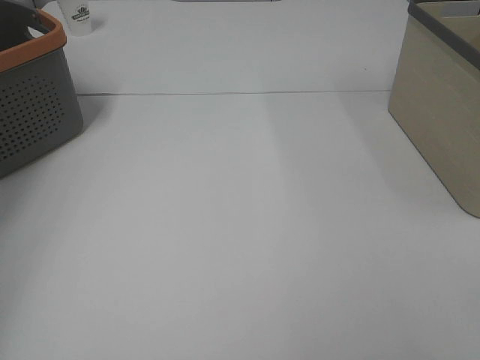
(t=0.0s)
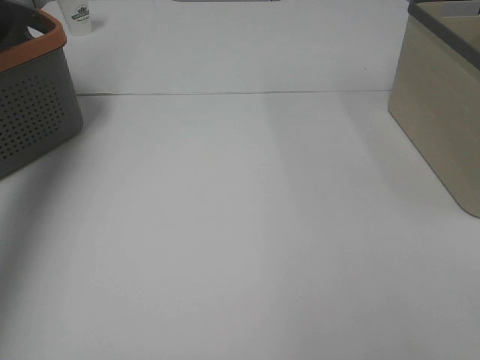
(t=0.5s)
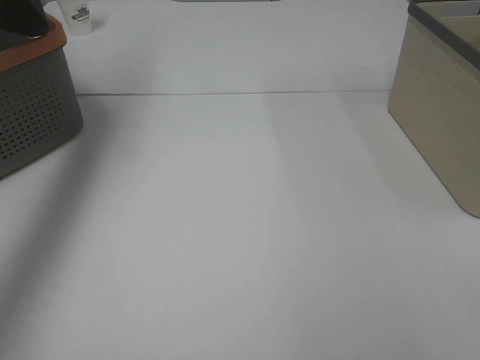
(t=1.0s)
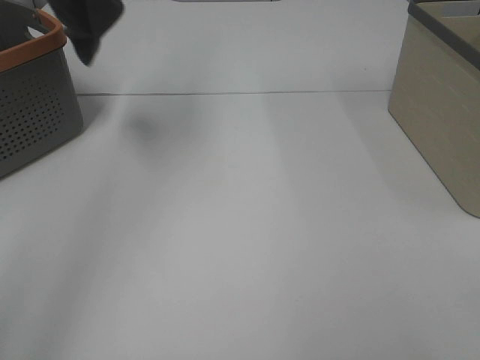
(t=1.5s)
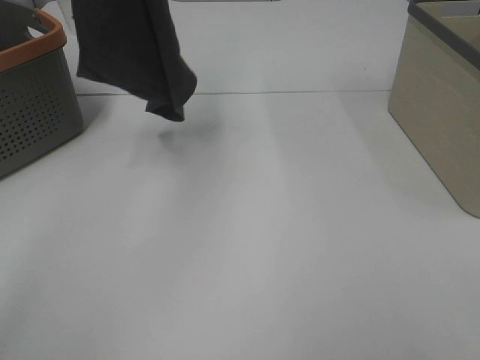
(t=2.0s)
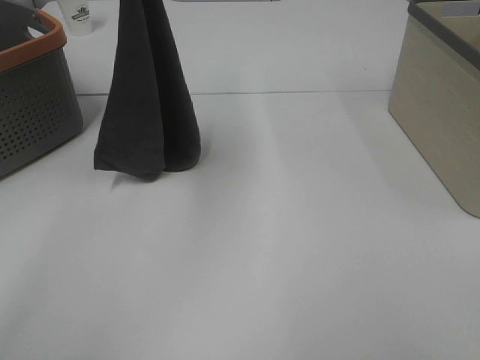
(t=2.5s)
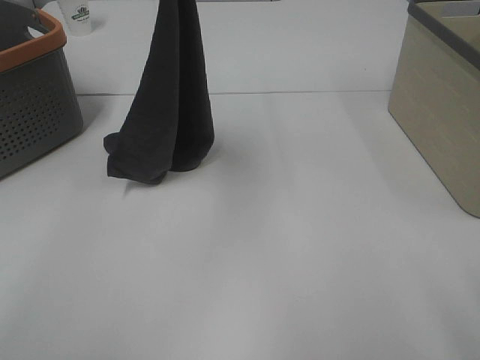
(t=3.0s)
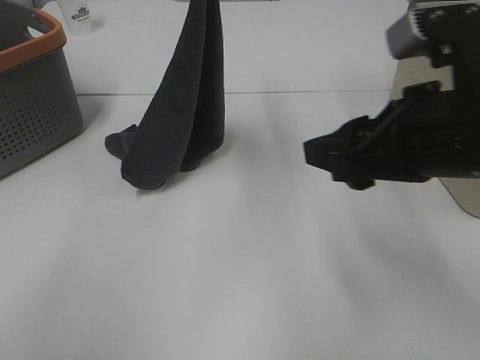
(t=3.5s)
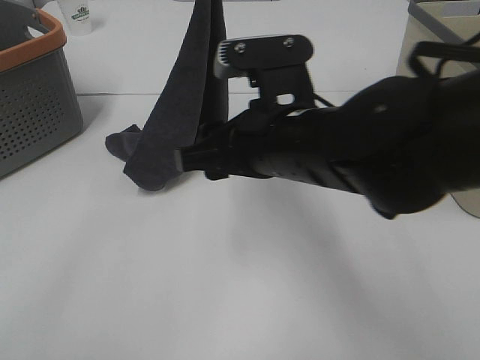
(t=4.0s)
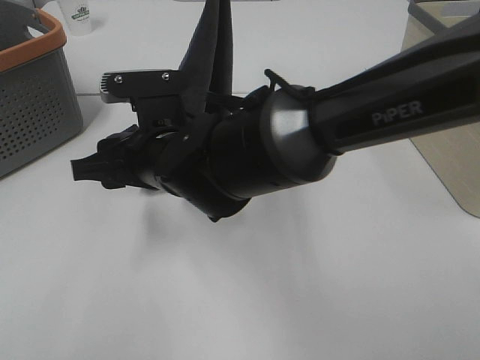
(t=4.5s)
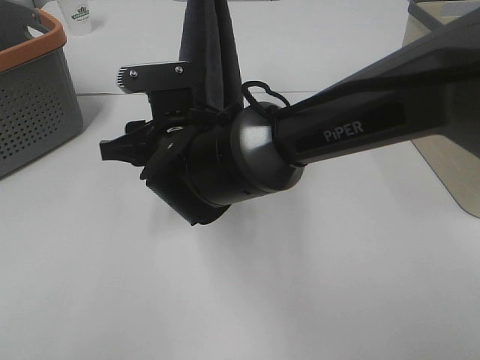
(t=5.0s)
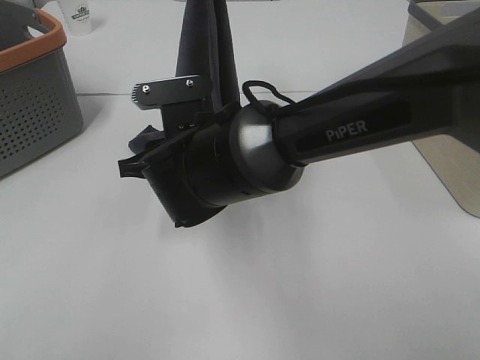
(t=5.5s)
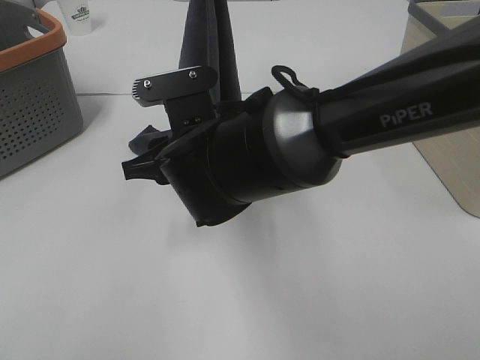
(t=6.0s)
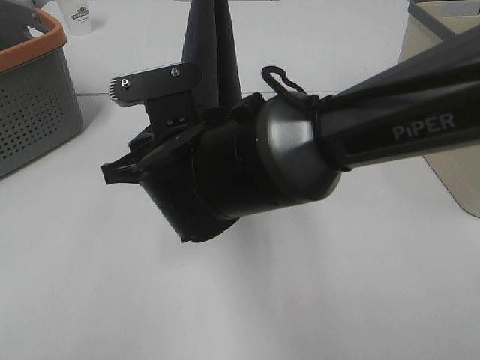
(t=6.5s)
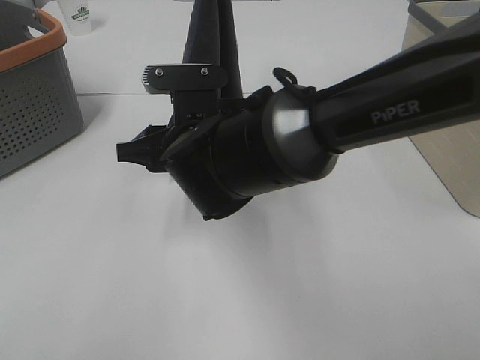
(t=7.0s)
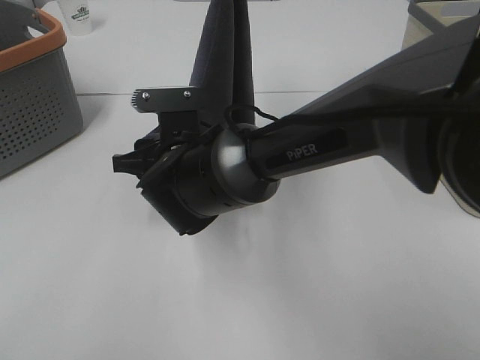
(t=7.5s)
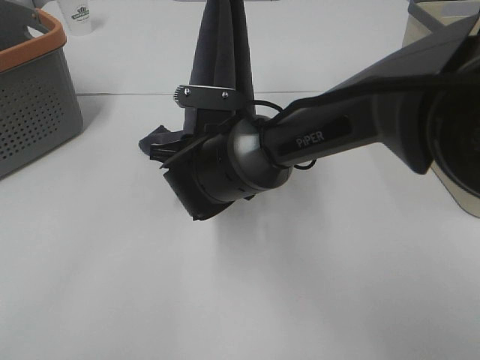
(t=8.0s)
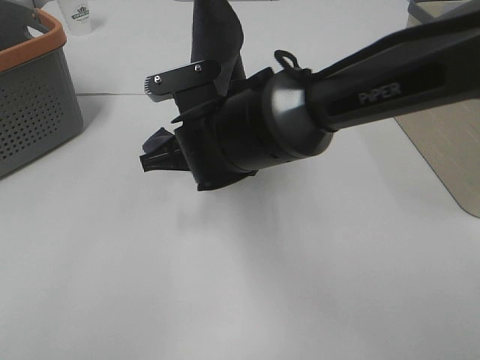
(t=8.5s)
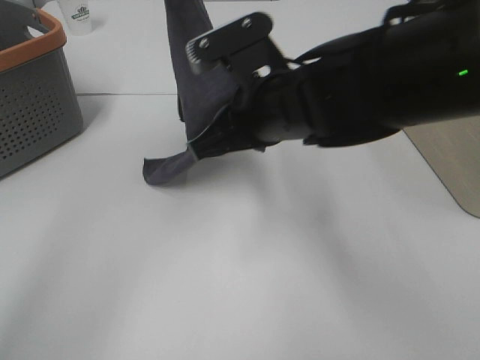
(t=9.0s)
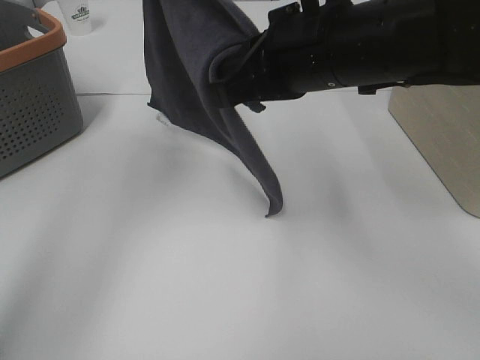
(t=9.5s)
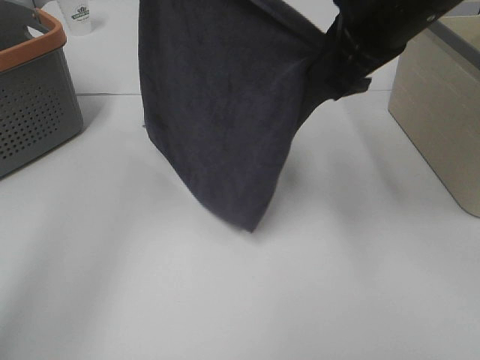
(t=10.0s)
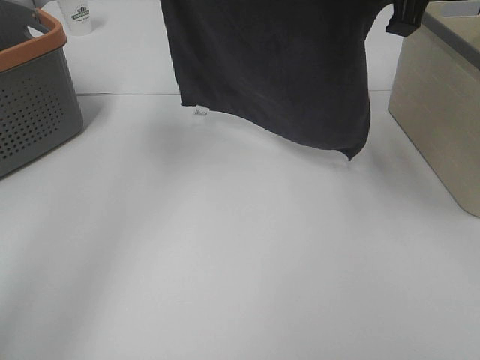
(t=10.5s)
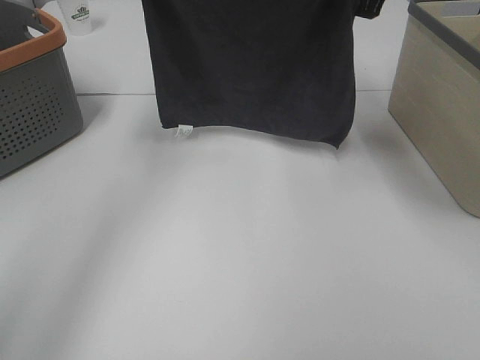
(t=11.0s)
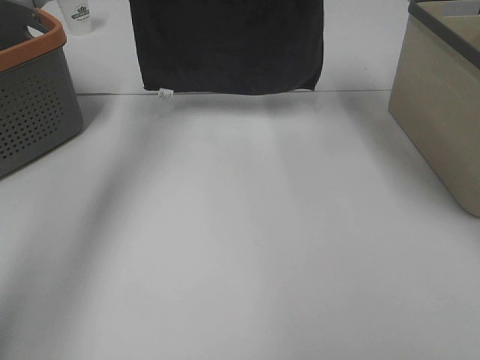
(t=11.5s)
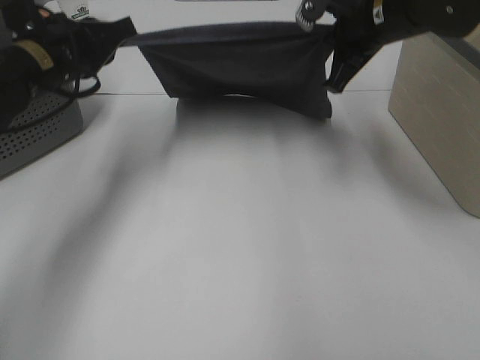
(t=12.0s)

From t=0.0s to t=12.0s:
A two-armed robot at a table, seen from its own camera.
Task of the whole recording: Remove the towel and place it.
Step, from t=1.0s to t=6.5s: Right hand: grab a corner of the grey towel and straighten it.
Step, from t=7.0s to t=8.5s: Left hand: spread the grey towel flat on the table.
Step, from t=7.0s to t=8.5s: Right hand: spread the grey towel flat on the table.
From t=0.0s to t=2.0s: The left gripper heads to the right, covering approximately 30 cm.
From t=2.0s to t=4.0s: The left gripper heads downward and to the right, covering about 20 cm. Meanwhile the right gripper goes roughly 35 cm forward and to the left.
From t=4.0s to t=6.0s: The right gripper goes roughly 5 cm to the left.
From t=6.0s to t=8.0s: The right gripper is displaced downward and forward by roughly 5 cm.
From t=8.0s to t=10.0s: The left gripper goes some 15 cm to the left and forward, while the right gripper is displaced upward and to the right by roughly 25 cm, and closes its fingers.
From t=10.0s to t=12.0s: The left gripper is displaced downward by about 20 cm; the right gripper heads forward and downward, covering roughly 10 cm.

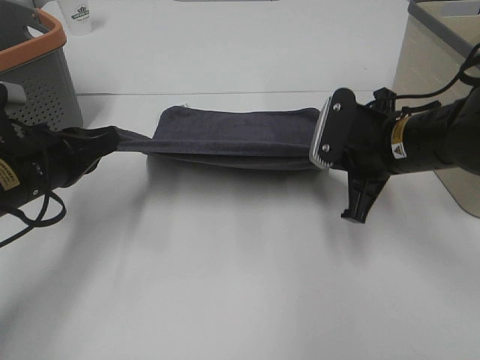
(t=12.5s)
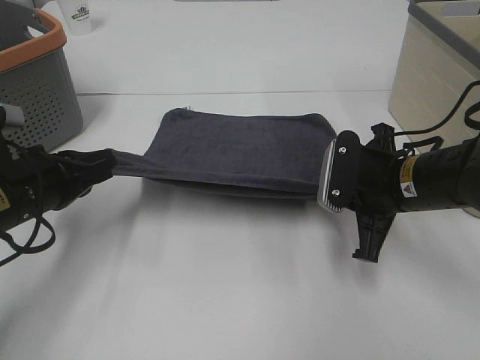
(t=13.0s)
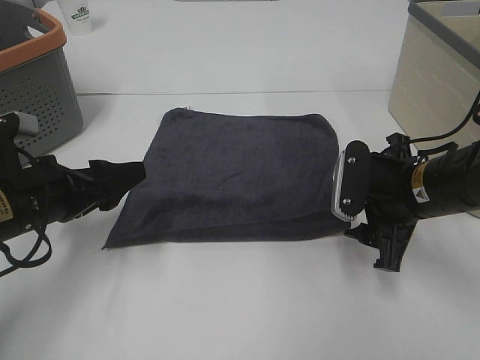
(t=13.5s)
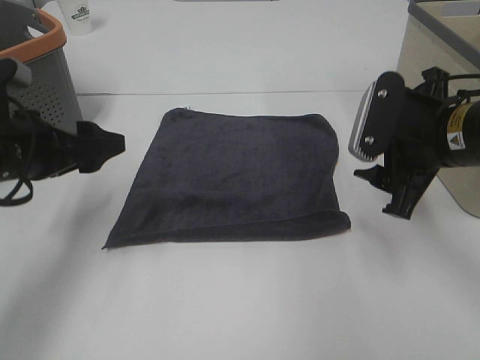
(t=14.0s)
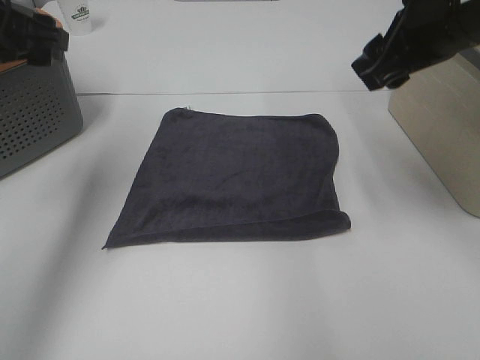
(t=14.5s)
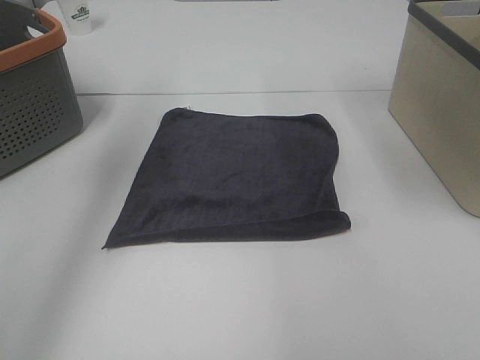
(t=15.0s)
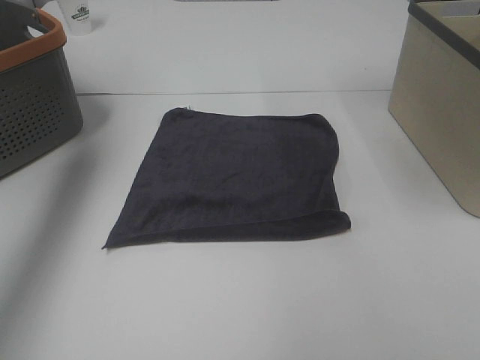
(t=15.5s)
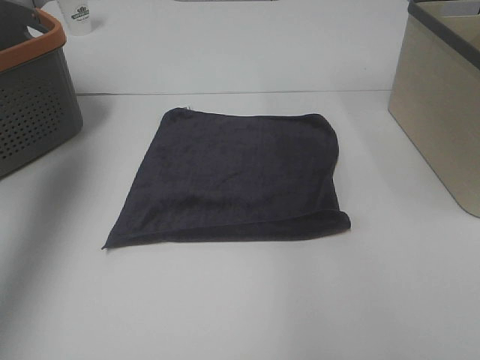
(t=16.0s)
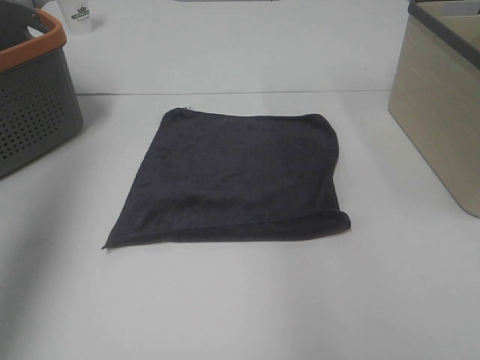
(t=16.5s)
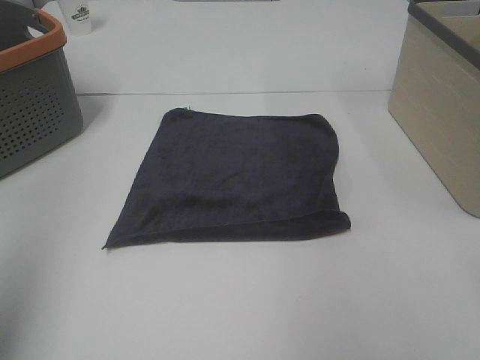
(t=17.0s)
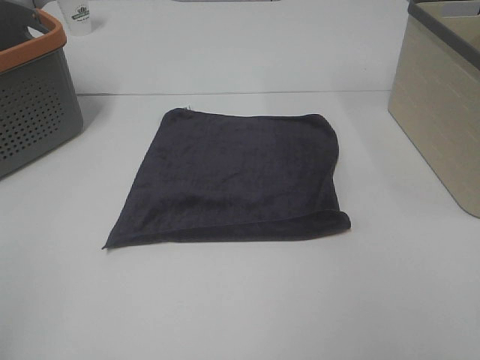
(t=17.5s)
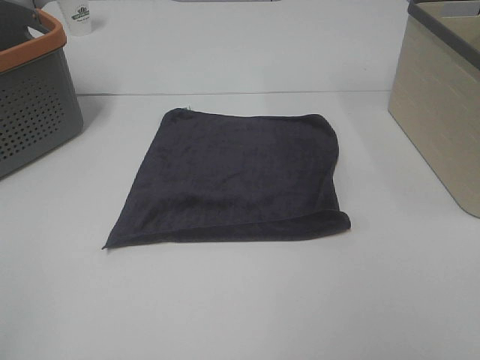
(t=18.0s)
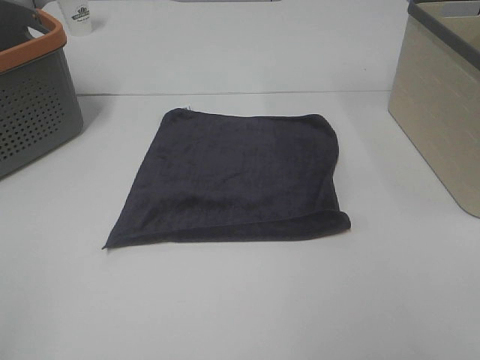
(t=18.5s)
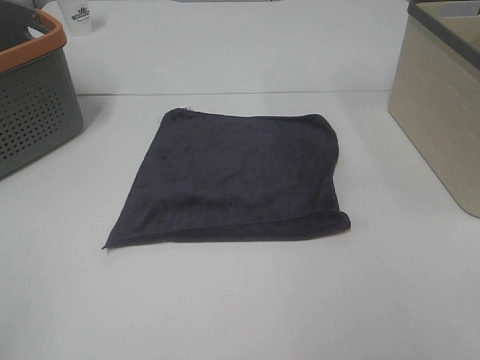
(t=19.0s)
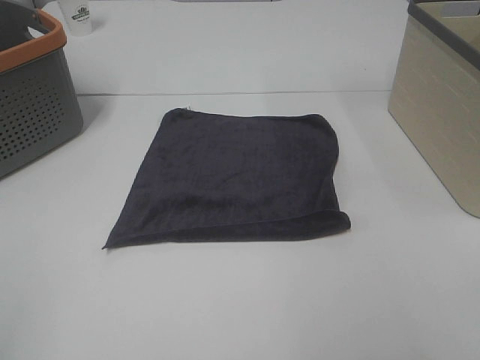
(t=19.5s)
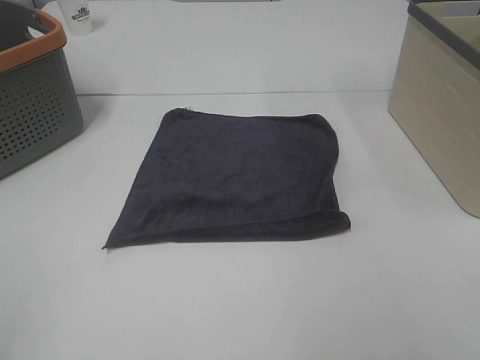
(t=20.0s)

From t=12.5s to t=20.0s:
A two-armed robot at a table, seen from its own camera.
Task of the whole recording: Remove the towel and place it.
From t=12.5s to t=14.5s: The right gripper heads upward, covering some 15 cm, and opens up; the left gripper shifts approximately 15 cm upward and forward, and opens its fingers.
From t=14.5s to t=16.5s: The left gripper travels upward, backward and to the left by some 20 cm. Meanwhile the right gripper travels upward, to the right and backward by roughly 15 cm.
From t=16.5s to t=18.0s: The left gripper travels backward and downward by some 30 cm.

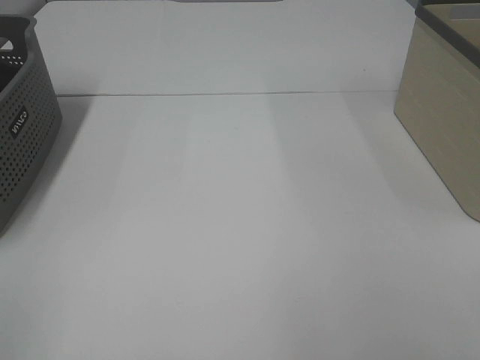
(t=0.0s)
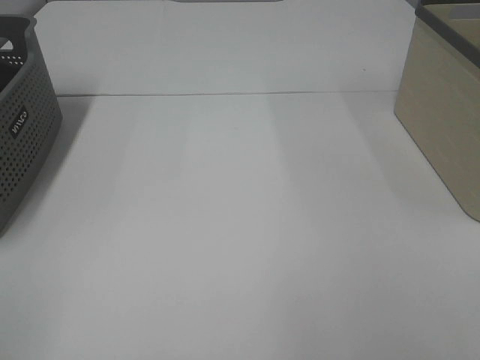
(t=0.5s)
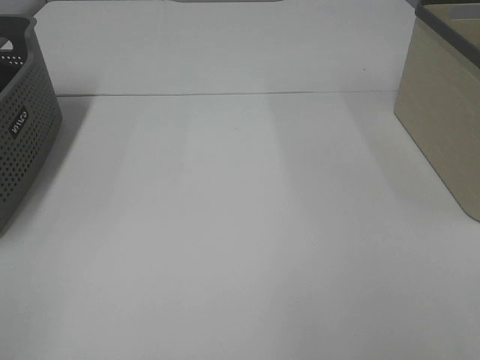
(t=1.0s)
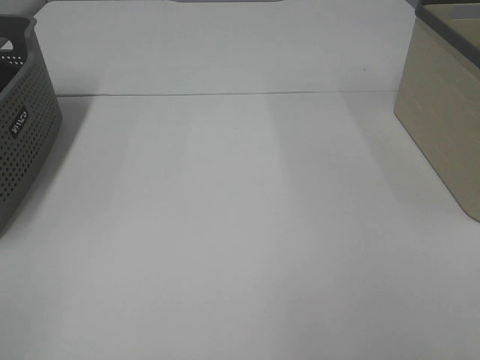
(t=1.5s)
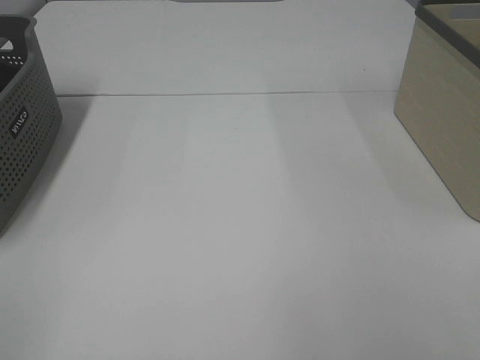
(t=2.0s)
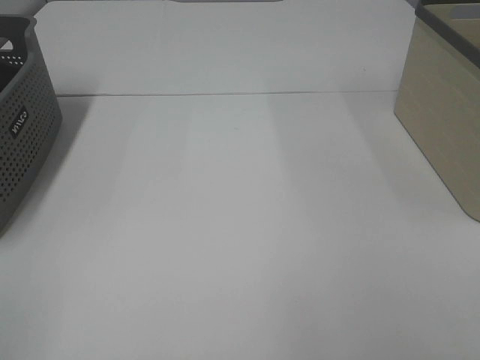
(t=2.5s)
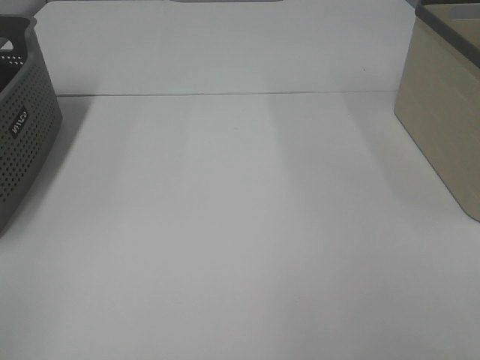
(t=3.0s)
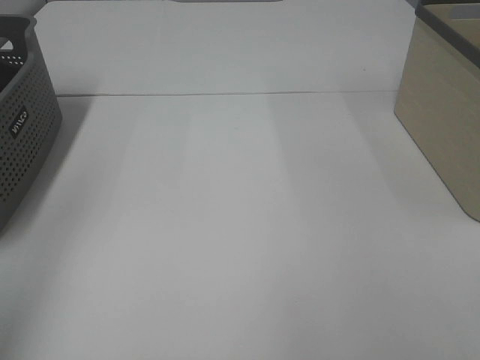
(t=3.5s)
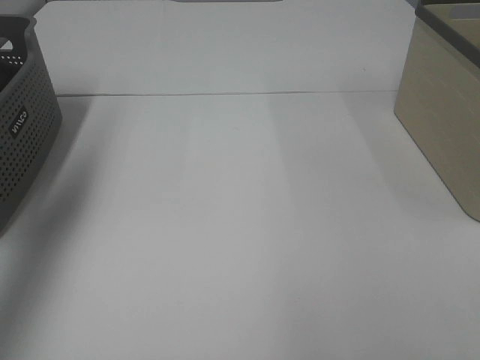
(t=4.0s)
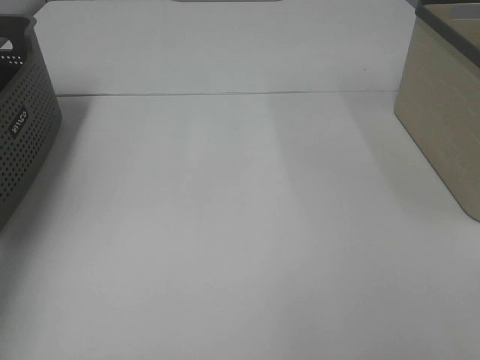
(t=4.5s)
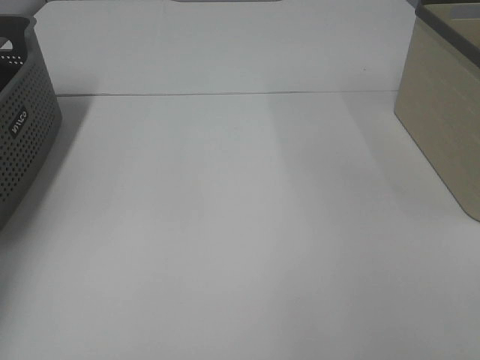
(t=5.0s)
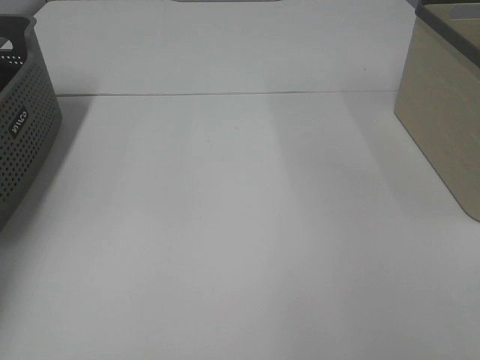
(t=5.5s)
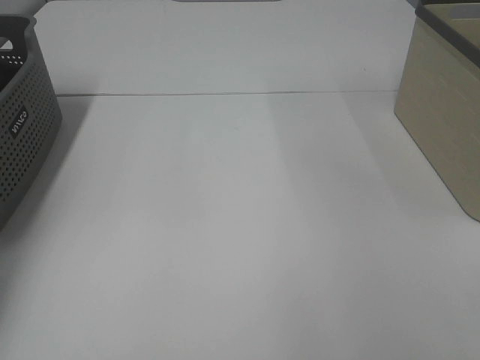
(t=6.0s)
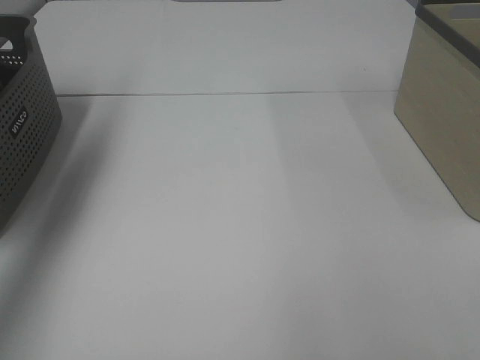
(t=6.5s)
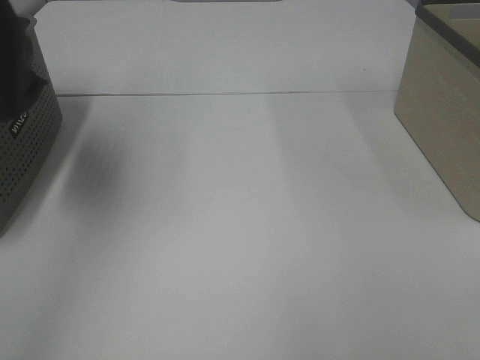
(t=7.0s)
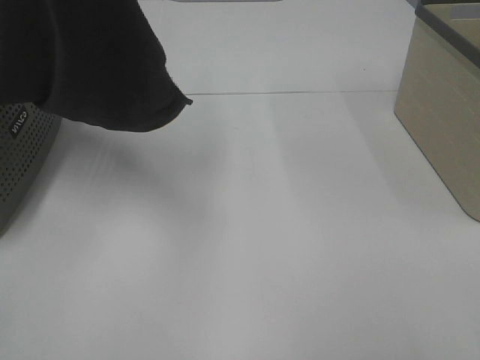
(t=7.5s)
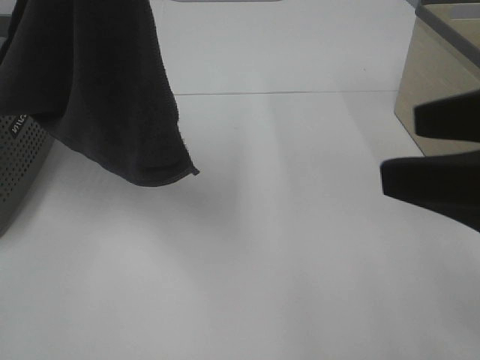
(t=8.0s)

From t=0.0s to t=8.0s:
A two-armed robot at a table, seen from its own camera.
Task of the whole recording: Remove the towel and place it.
From t=0.0s to t=2.0s: Neither gripper changes place.
From t=2.0s to t=4.0s: The left gripper is displaced forward by approximately 30 cm.
From t=4.0s to t=6.0s: The left gripper is displaced downward, forward and to the left by roughly 25 cm, and closes.
From t=6.0s to t=8.0s: The right gripper moves forward and to the left, approximately 15 cm. Meanwhile the left gripper heads to the right, upward and backward, covering roughly 50 cm.
